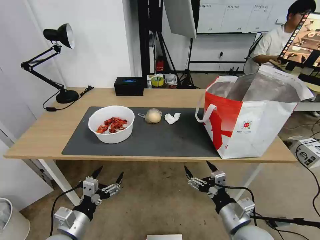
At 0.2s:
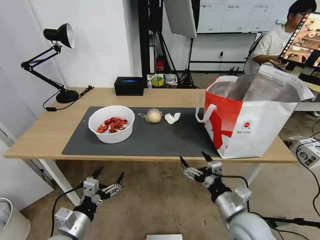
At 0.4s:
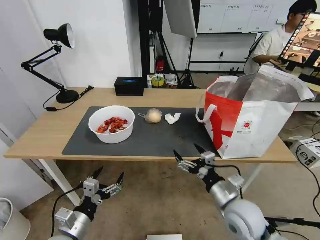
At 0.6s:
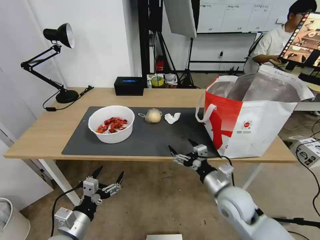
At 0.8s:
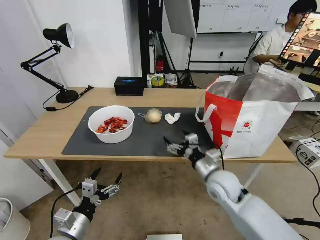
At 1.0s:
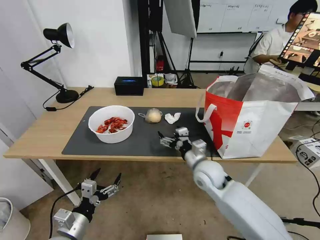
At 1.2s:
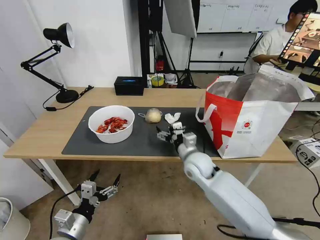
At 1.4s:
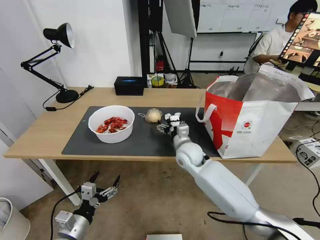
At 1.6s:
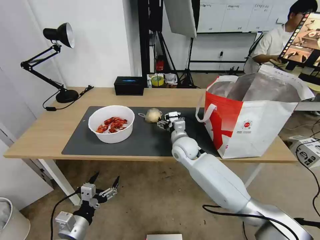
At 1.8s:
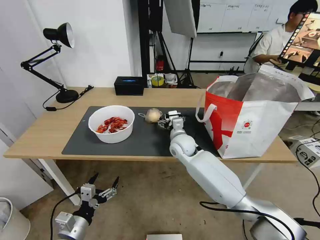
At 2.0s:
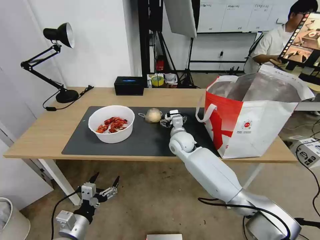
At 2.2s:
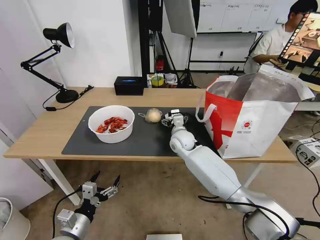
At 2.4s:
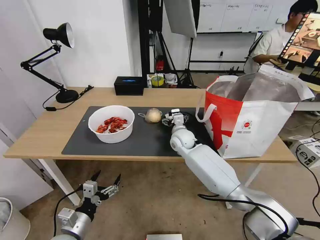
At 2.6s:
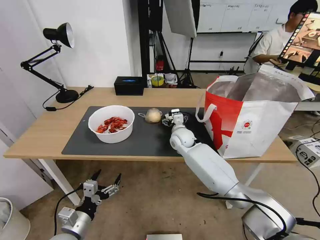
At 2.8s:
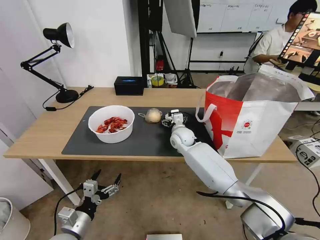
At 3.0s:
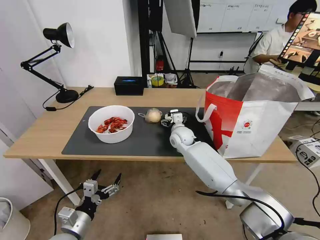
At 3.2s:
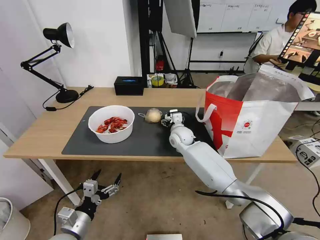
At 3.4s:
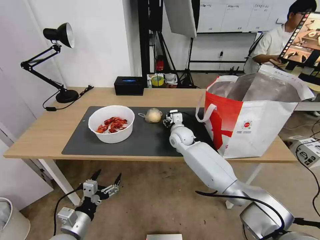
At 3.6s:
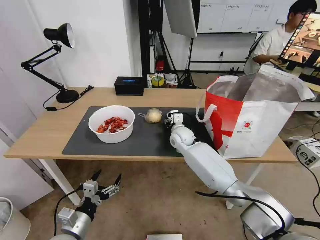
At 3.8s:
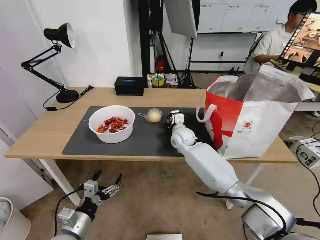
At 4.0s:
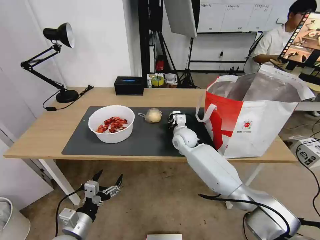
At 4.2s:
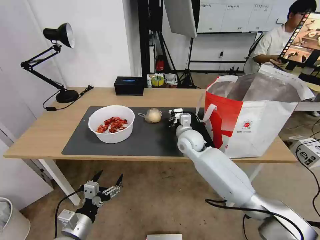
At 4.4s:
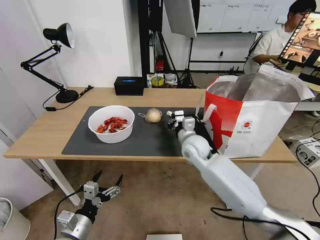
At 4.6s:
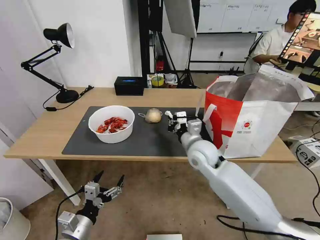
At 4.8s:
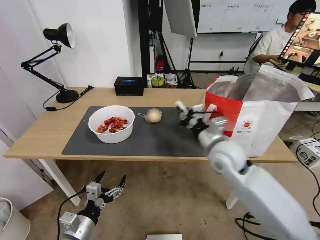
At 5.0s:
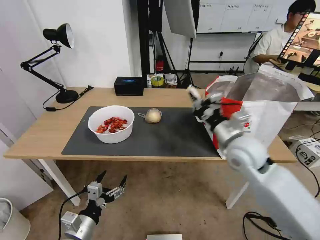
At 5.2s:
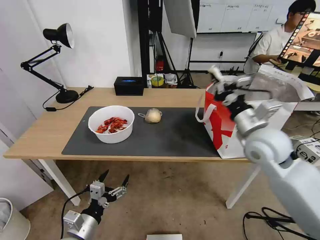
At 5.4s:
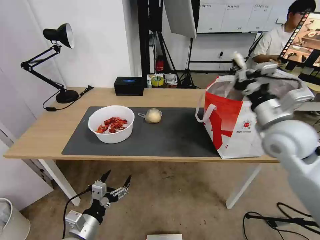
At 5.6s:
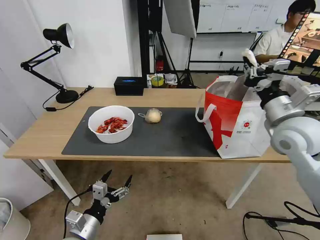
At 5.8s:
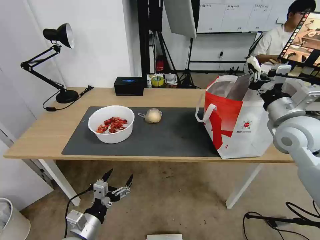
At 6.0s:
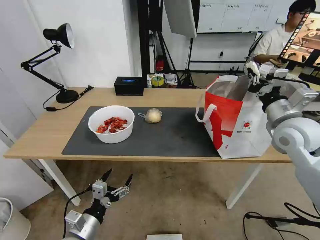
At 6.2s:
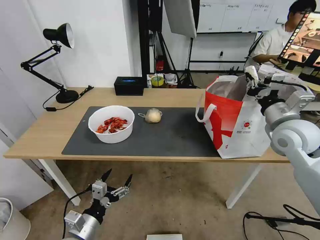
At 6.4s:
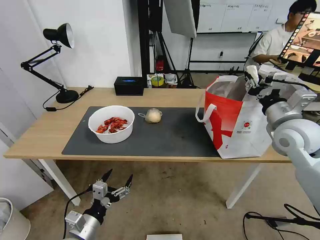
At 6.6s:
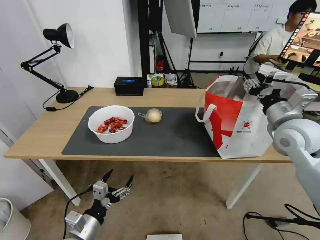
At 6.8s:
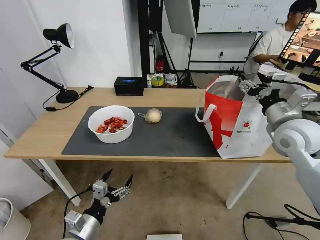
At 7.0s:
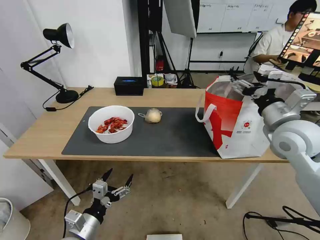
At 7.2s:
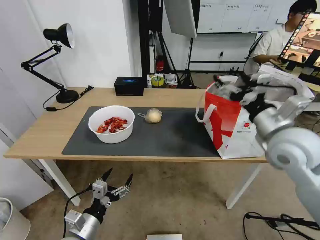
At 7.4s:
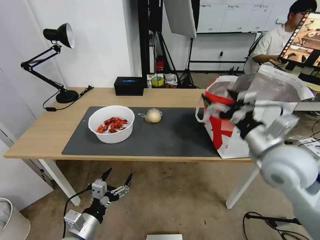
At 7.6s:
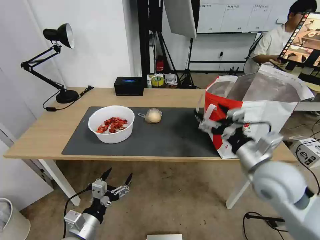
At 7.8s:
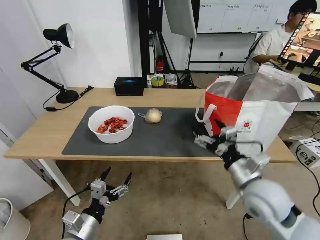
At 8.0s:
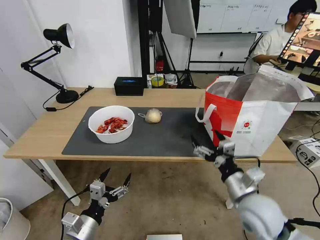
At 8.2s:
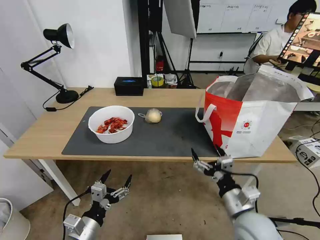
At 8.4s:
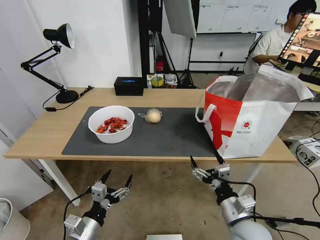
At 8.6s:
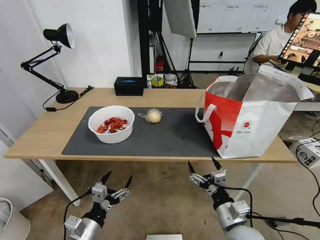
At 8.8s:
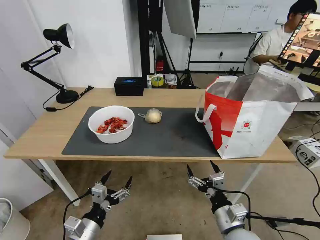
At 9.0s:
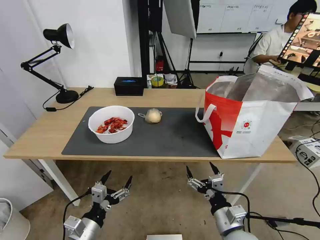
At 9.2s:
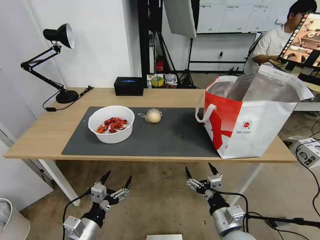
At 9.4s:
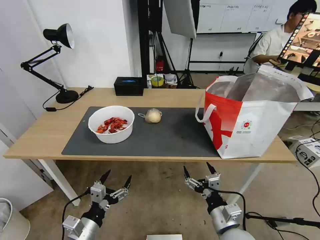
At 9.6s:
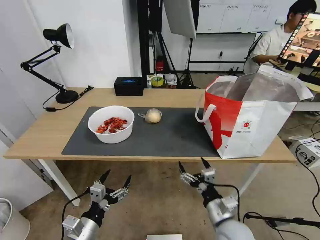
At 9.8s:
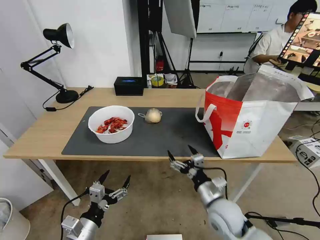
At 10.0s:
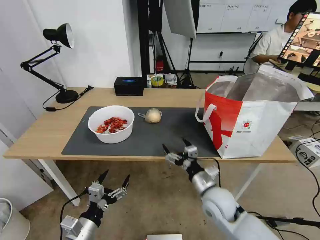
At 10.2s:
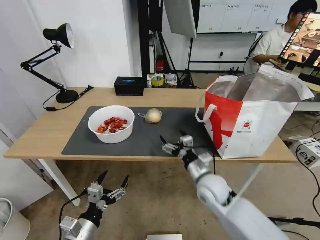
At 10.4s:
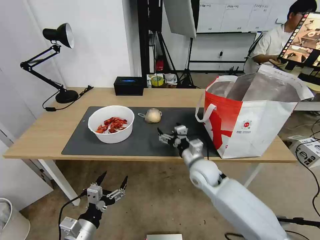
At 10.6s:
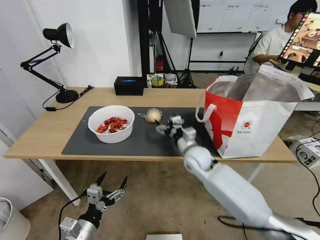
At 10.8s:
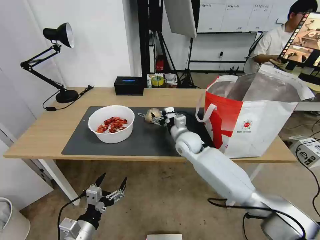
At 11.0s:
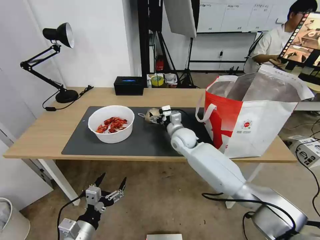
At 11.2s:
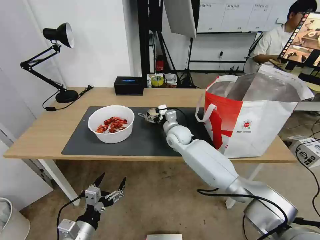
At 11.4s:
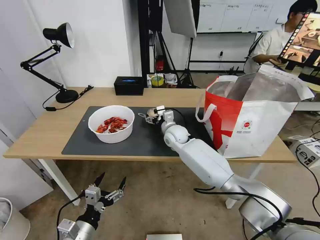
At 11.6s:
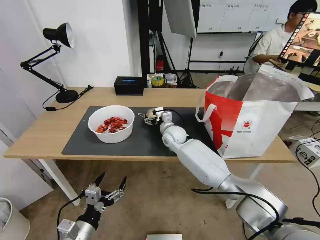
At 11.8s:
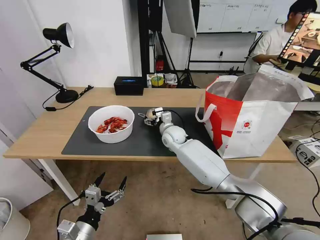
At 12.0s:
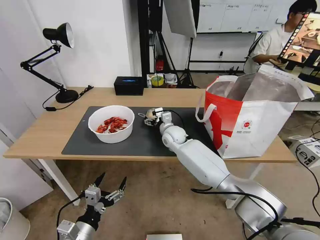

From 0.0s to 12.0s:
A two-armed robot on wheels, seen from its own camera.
Task of the whole recording: Pick up the trash from the table and place it into the takeout bag.
From 0.0s to 1.6s: The right gripper goes approximately 30 cm forward and to the left.
From 1.6s to 3.0s: The right gripper moves forward, some 5 cm.
From 3.0s to 4.4s: The right gripper shifts roughly 10 cm backward, and closes its fingers.
From 4.4s to 6.0s: The right gripper shifts approximately 25 cm to the right and upward.
From 6.0s to 7.6s: The right gripper shifts some 15 cm backward, to the left and downward, and opens up.
From 7.6s to 9.0s: The right gripper moves downward and backward, approximately 20 cm.
From 9.0s to 10.4s: The right gripper shifts approximately 20 cm forward.
From 10.4s to 12.0s: The right gripper is displaced forward and to the left by approximately 20 cm.

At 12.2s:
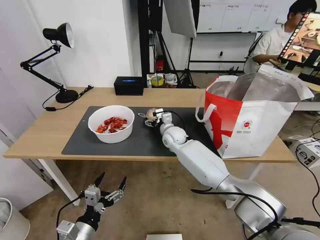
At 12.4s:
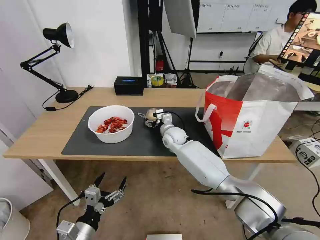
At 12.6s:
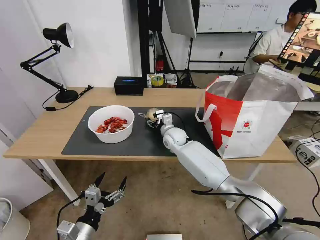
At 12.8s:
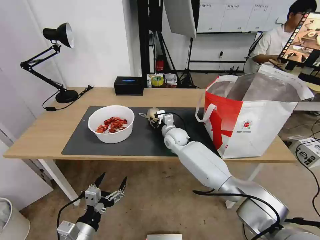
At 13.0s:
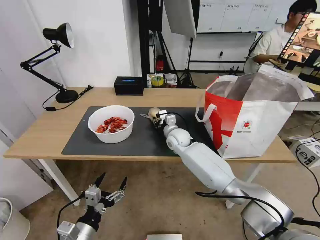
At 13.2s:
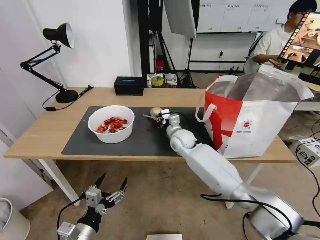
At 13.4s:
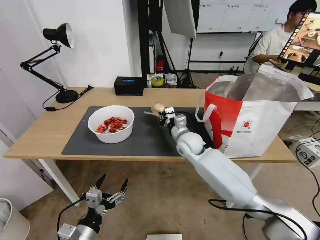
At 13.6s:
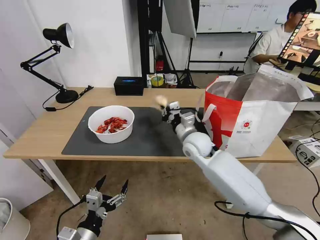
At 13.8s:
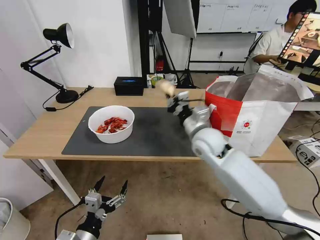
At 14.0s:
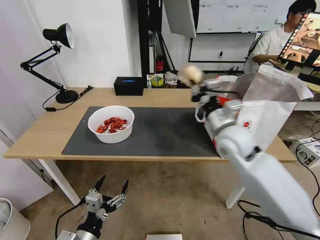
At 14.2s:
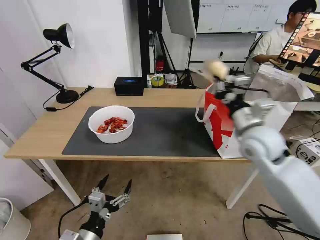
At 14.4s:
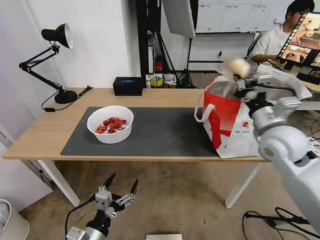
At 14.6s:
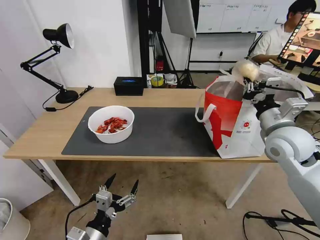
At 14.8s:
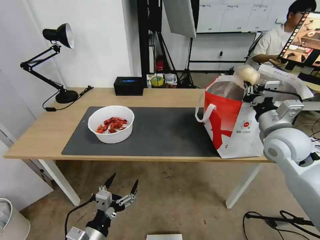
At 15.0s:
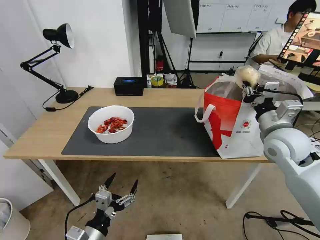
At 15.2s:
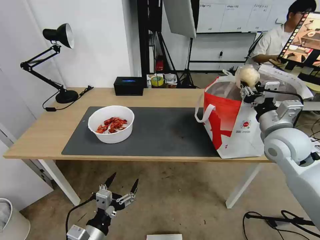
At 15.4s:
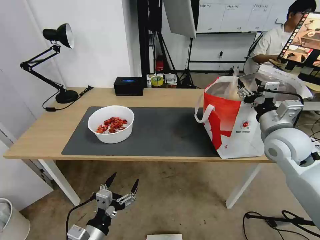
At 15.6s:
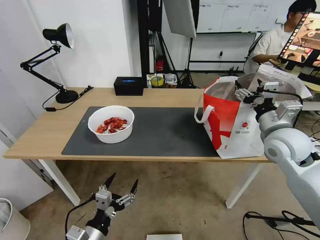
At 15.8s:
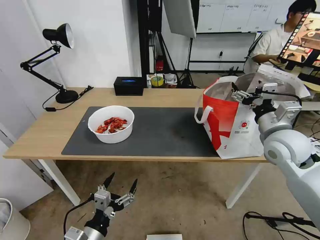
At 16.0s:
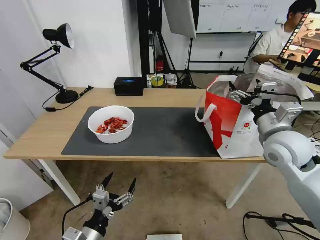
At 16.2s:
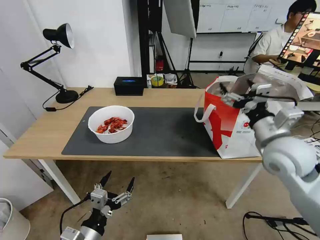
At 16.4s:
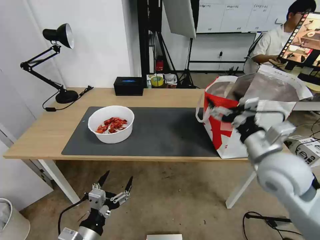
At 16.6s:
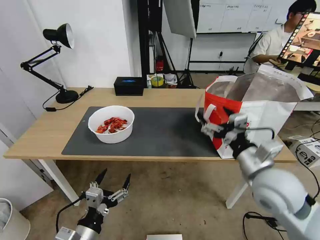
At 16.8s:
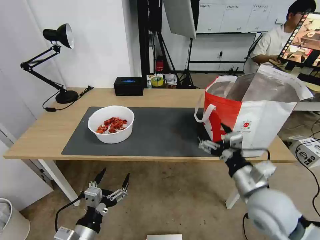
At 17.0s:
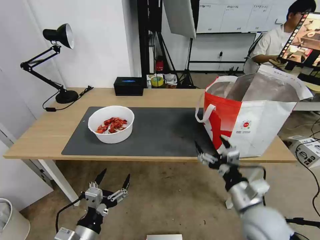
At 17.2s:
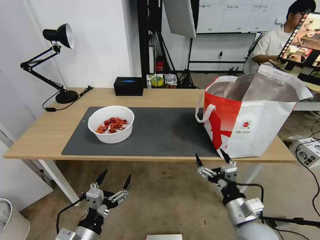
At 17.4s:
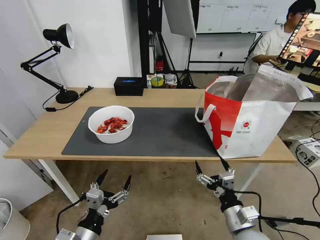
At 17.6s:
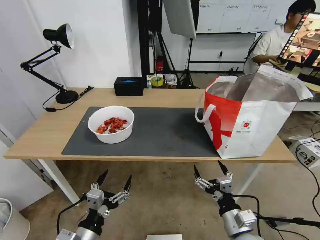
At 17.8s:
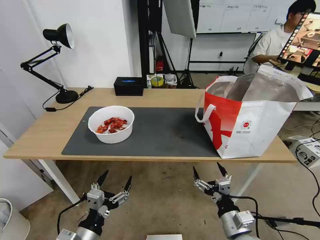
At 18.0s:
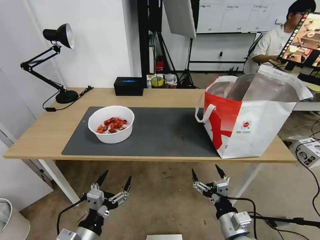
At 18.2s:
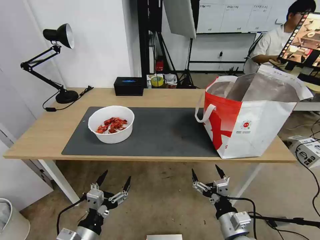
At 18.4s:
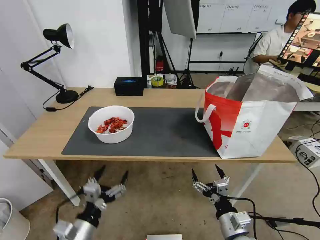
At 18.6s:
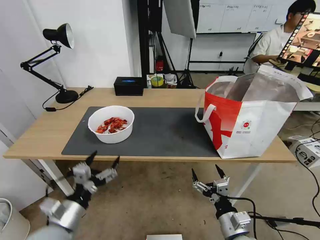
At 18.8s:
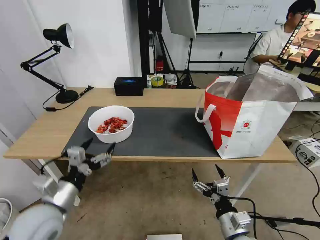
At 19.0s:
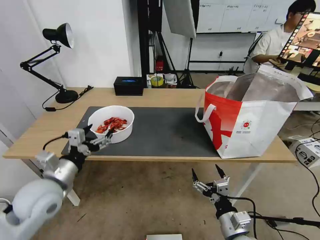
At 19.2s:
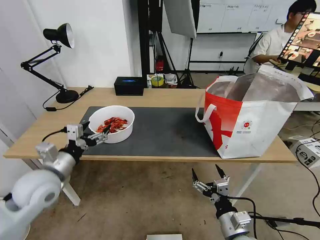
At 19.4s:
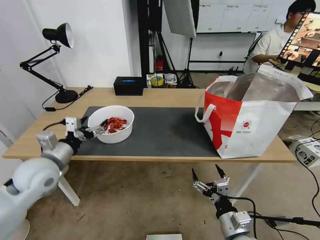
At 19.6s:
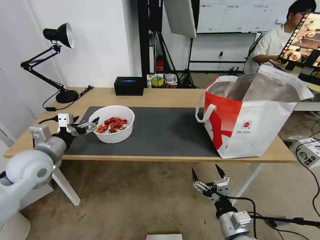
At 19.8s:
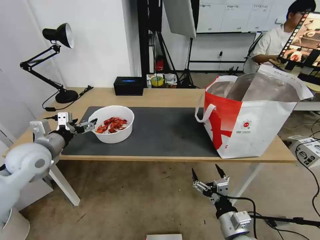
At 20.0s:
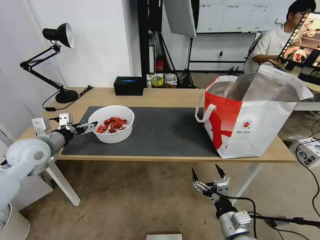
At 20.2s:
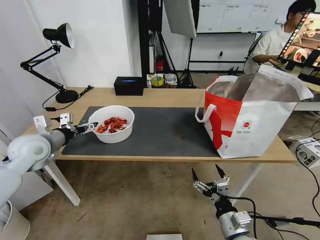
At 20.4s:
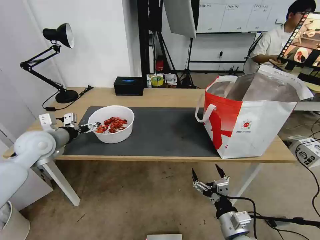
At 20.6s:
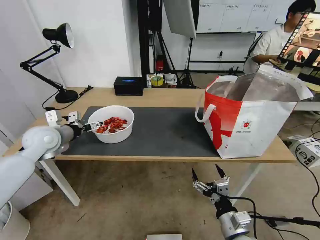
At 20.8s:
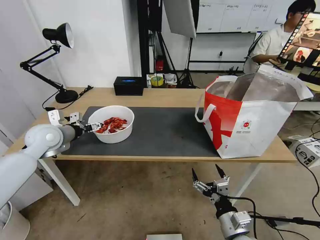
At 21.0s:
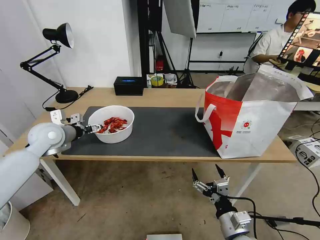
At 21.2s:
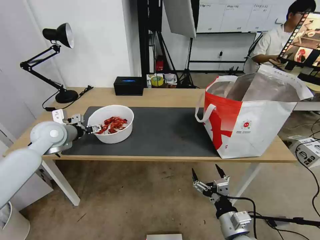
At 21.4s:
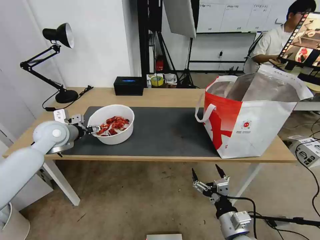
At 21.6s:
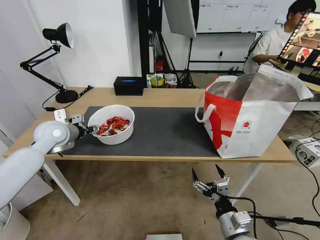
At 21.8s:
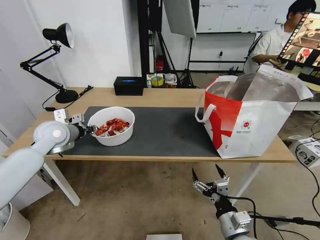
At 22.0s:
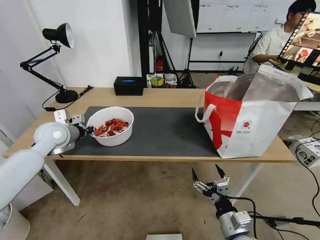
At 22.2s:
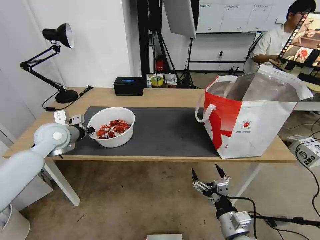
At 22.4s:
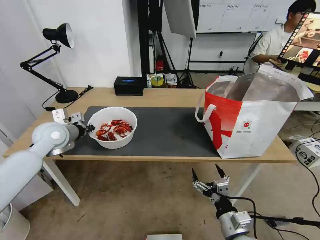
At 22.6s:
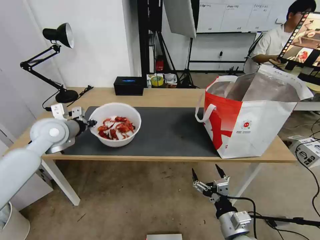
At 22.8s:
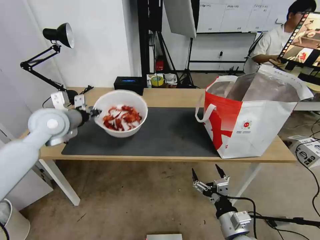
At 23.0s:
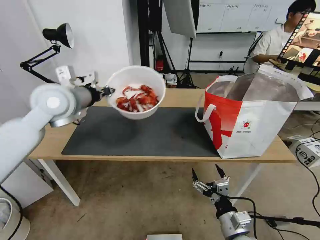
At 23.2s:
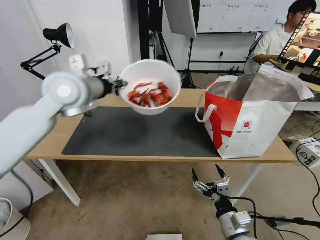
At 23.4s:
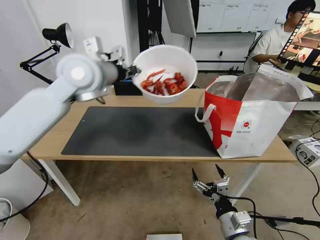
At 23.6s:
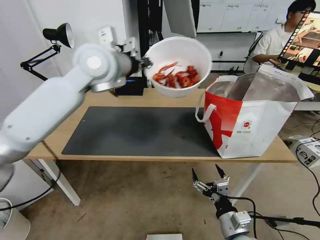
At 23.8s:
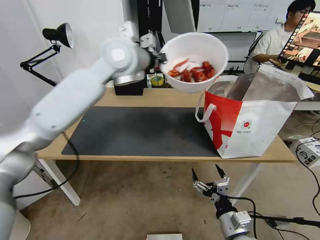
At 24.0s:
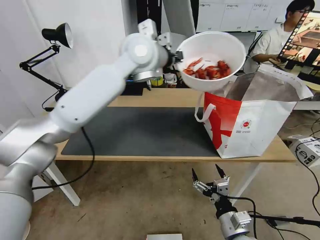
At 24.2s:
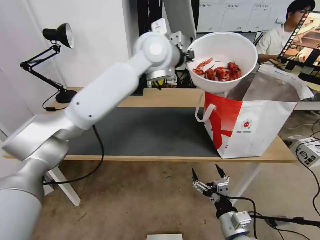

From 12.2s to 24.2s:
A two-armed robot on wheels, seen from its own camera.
Task of the whole recording: Pick up the trash from the table and place it into the takeout bag.
From 12.2s to 13.8s: The right gripper heads backward, upward and to the right, covering some 20 cm, and closes its fingers.
From 13.8s to 15.2s: The right gripper goes some 20 cm to the right, and opens up.
From 15.2s to 16.6s: The right gripper moves backward and to the left, roughly 15 cm, and opens up.
From 16.6s to 18.2s: The right gripper is displaced downward and backward by roughly 20 cm.
From 18.2s to 19.8s: The left gripper is displaced forward, upward and to the left by roughly 30 cm.
From 19.8s to 21.2s: The left gripper moves forward, about 10 cm.
From 21.2s to 22.6s: The left gripper closes its fingers.
From 22.6s to 24.2s: The left gripper travels to the right and upward by some 35 cm.
